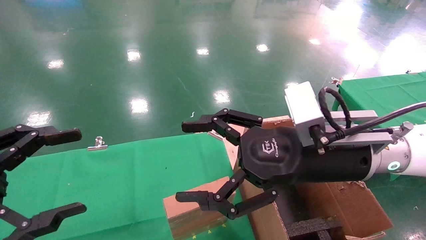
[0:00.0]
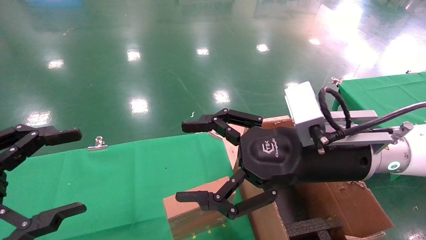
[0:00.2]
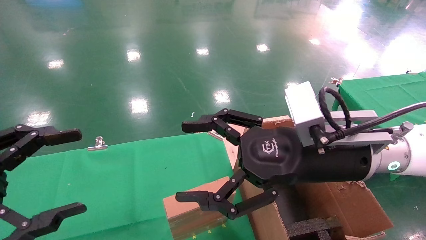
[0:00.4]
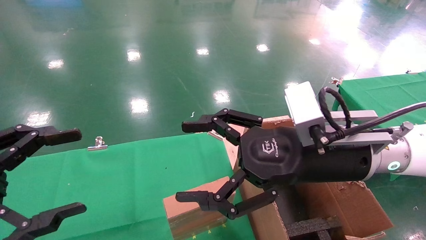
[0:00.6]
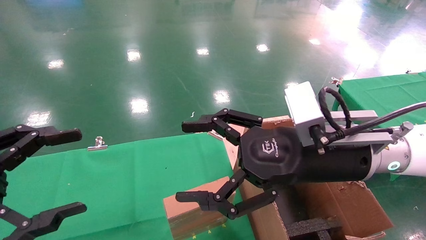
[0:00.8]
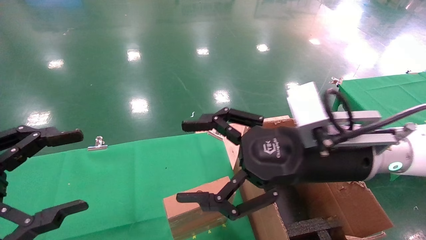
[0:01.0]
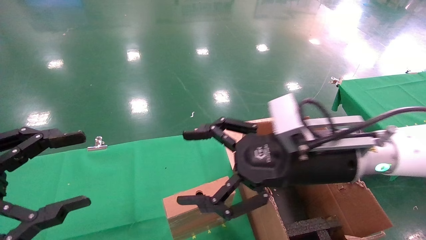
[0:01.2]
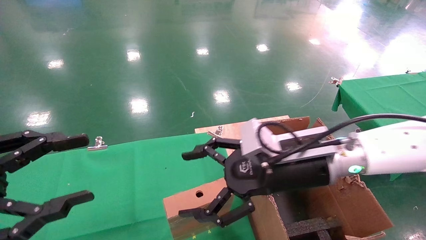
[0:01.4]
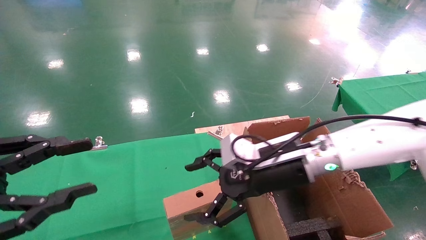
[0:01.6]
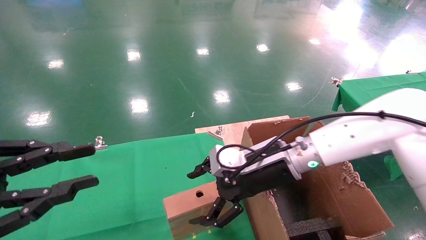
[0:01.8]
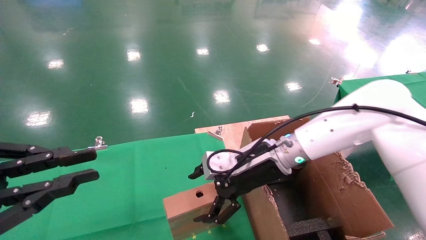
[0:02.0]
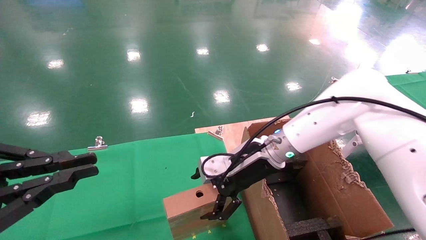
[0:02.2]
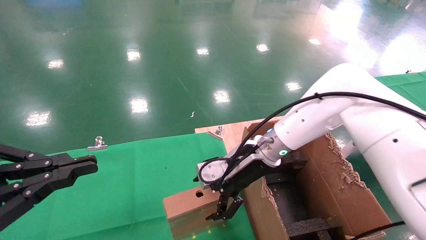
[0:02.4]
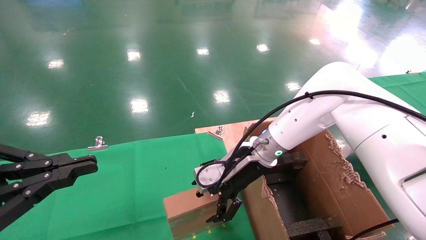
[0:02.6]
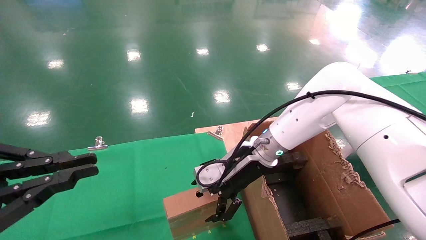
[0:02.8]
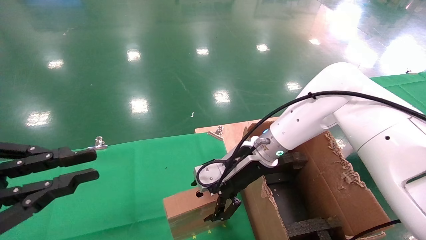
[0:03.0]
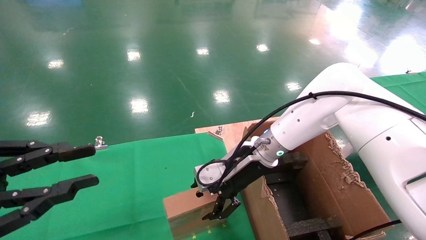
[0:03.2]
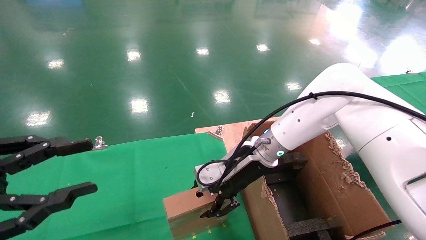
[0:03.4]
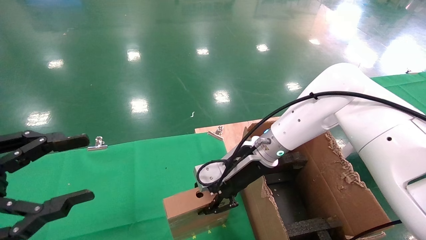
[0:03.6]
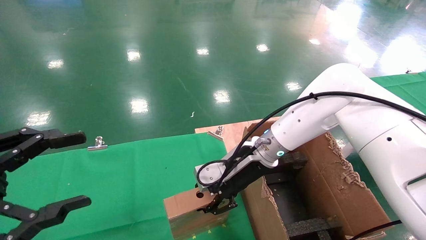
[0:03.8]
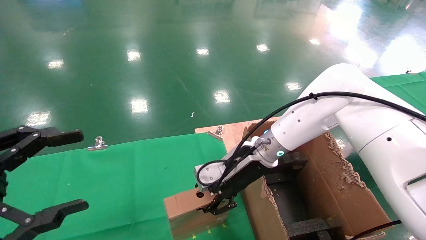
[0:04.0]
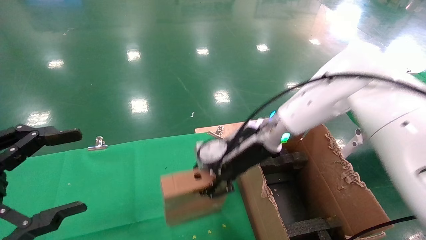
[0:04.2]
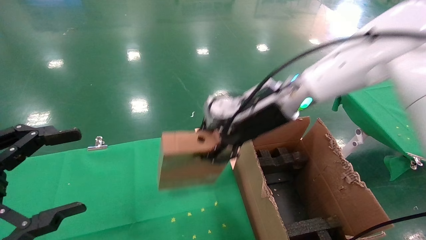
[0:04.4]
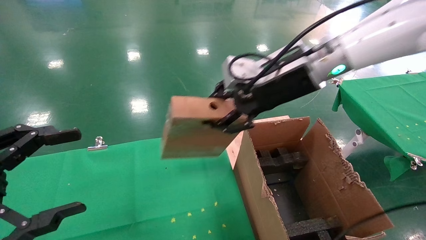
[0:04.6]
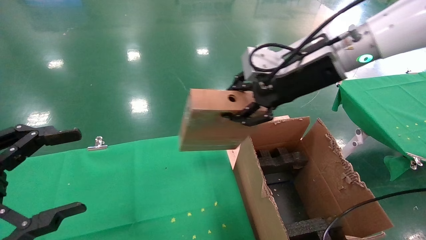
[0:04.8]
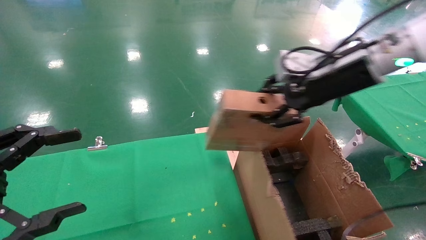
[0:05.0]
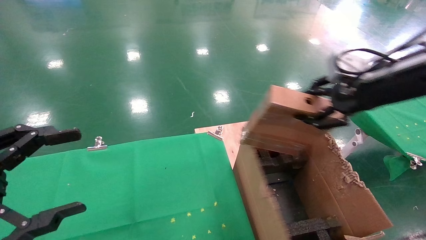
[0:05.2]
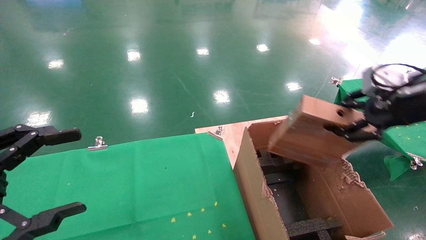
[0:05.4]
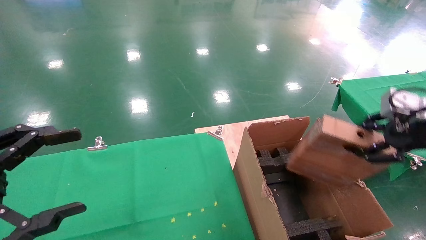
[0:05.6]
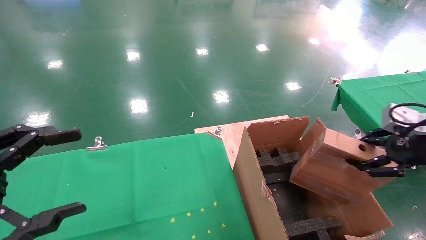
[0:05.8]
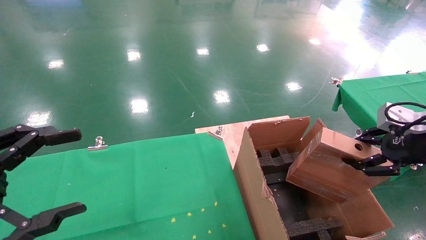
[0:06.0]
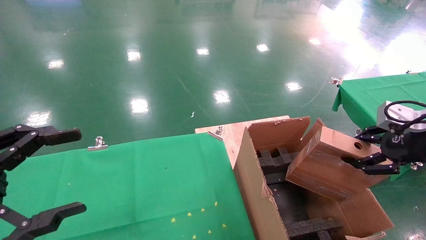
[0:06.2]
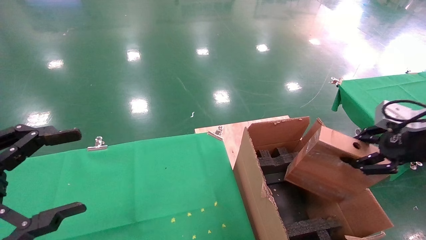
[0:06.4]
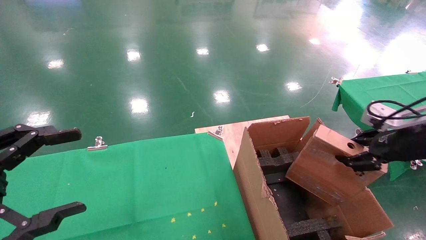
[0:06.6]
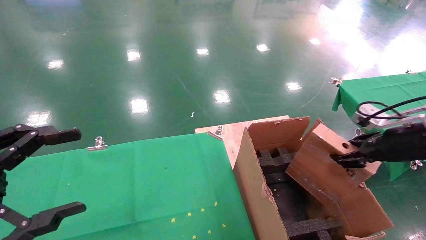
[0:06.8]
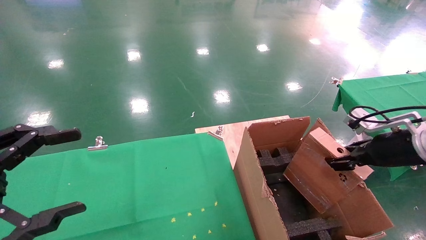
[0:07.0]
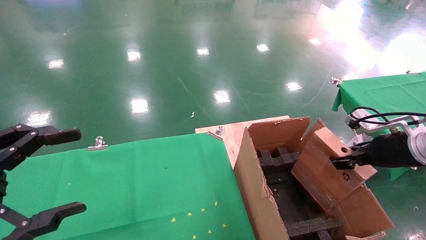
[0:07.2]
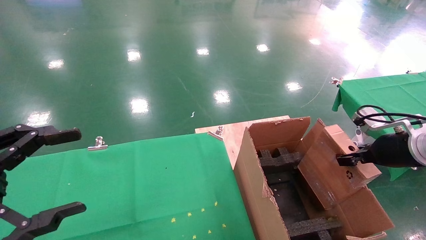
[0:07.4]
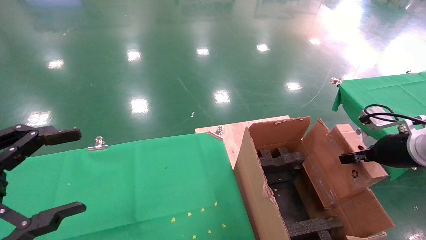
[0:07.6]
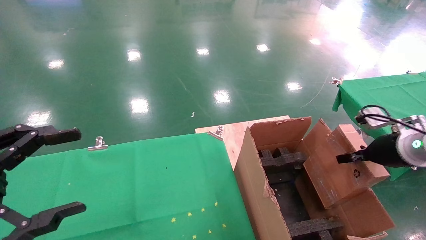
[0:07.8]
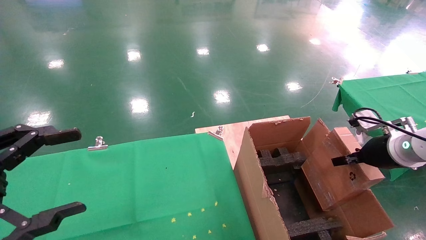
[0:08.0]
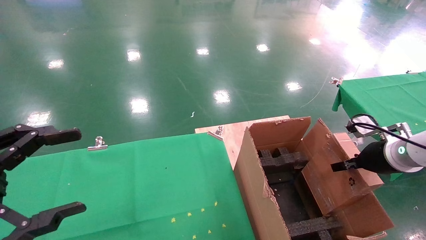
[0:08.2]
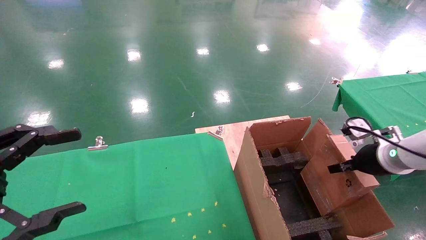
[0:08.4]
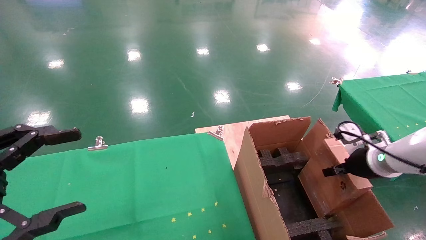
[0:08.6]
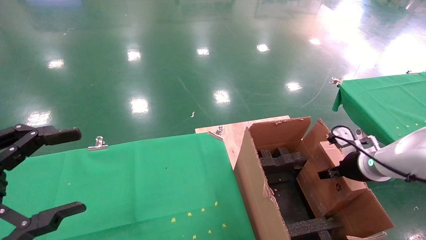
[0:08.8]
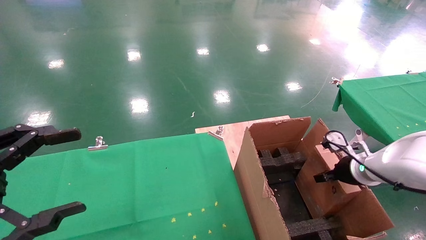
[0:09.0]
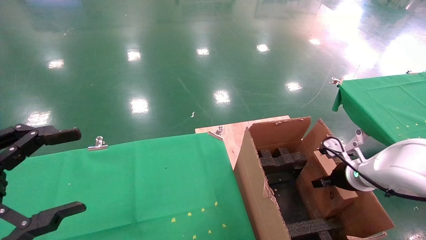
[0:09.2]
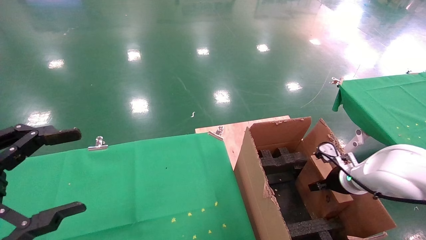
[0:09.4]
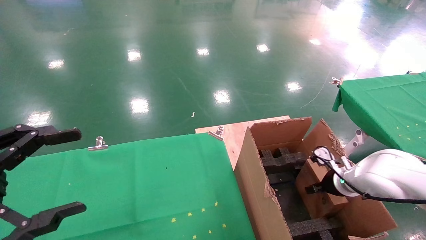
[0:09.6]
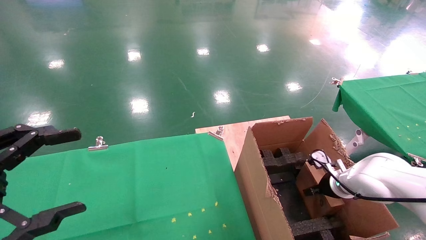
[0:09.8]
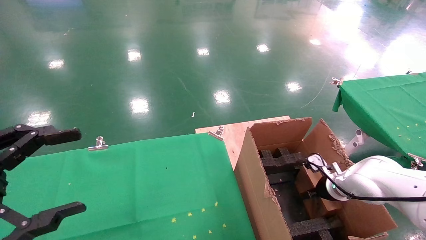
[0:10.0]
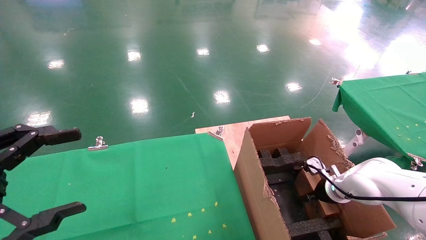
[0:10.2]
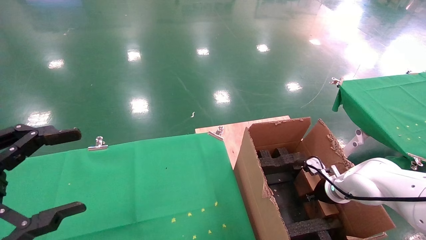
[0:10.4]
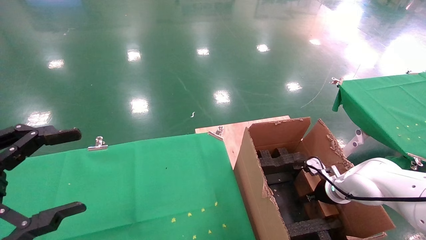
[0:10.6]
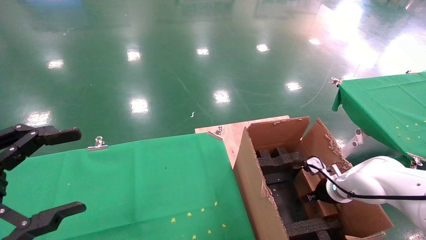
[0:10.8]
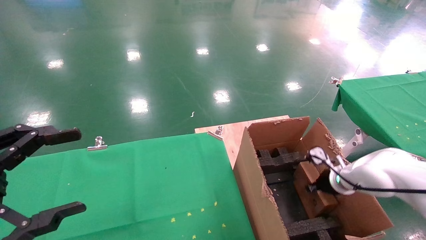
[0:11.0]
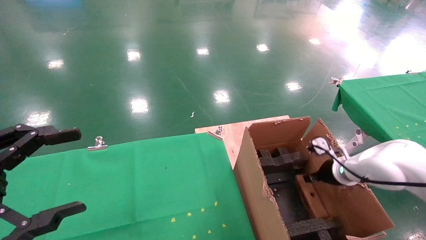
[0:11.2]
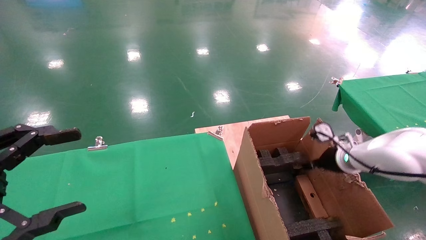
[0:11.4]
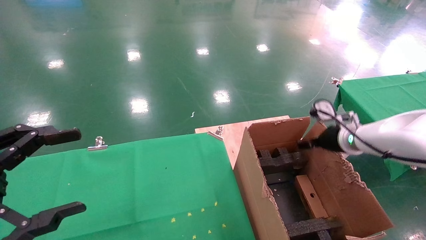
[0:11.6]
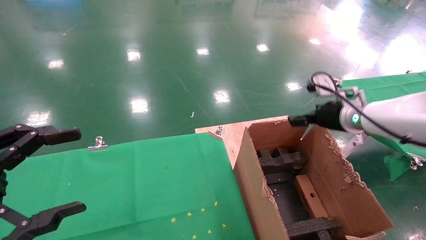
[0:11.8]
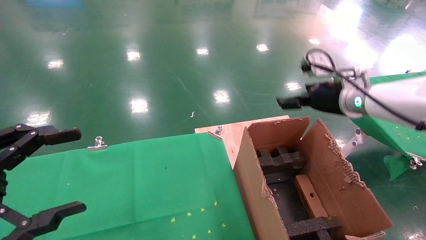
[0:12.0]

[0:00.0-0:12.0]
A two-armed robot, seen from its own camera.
Task of the whole recording: using a robotic arm to pick up a cardboard box and palace it the carton.
Step, 0:01.2 to 0:03.6: Pick up the mouse and the power cord paper box.
Step, 0:03.8 to 0:11.6: Place the mouse and the power cord paper box into the container.
0:00.0 to 0:01.6: The right gripper shifts roughly 10 cm forward and downward, while the left gripper closes its fingers.
0:01.6 to 0:03.0: The left gripper closes up. Meanwhile the right gripper is displaced forward by roughly 10 cm.
0:03.0 to 0:04.4: The left gripper opens up; the right gripper heads upward, covering some 10 cm, and closes.
0:04.4 to 0:06.0: The right gripper travels to the right and backward by approximately 30 cm.
0:06.0 to 0:07.6: The right gripper shifts about 10 cm downward and forward.
0:07.6 to 0:09.0: The right gripper travels downward and forward by some 10 cm.
0:09.0 to 0:10.4: The right gripper goes roughly 10 cm downward and forward.
0:10.4 to 0:12.0: The right gripper travels upward by some 25 cm, and opens its fingers.

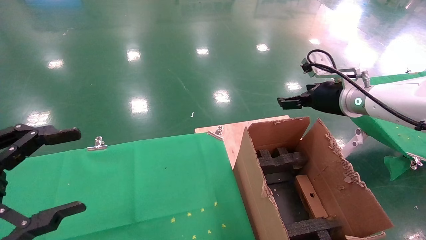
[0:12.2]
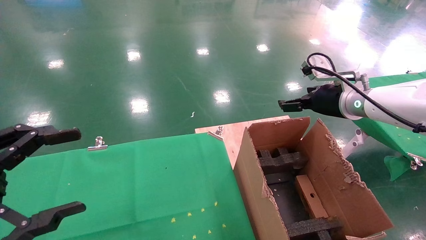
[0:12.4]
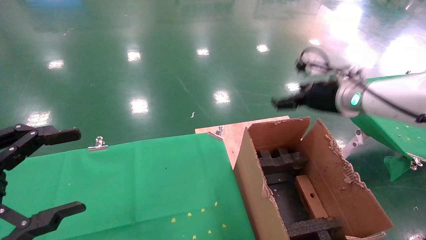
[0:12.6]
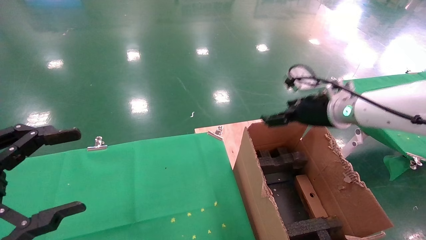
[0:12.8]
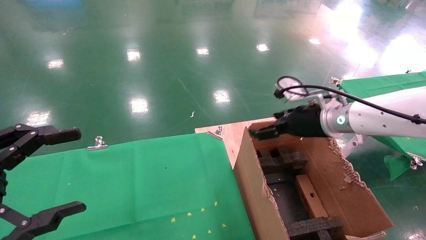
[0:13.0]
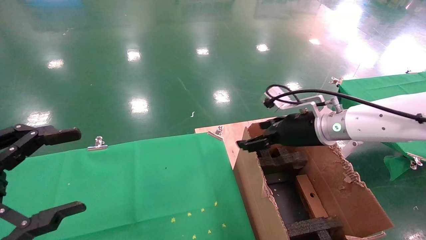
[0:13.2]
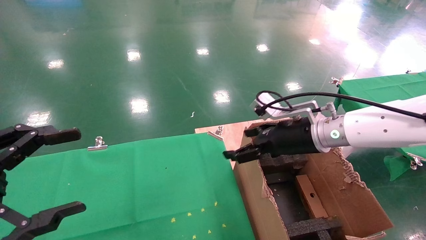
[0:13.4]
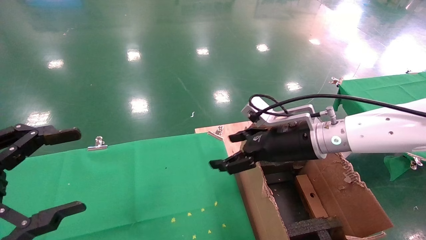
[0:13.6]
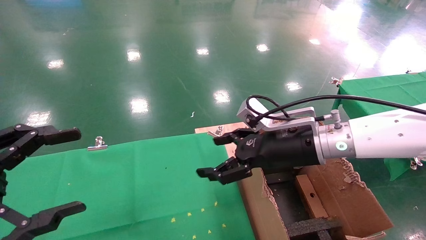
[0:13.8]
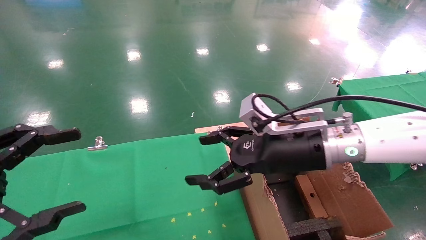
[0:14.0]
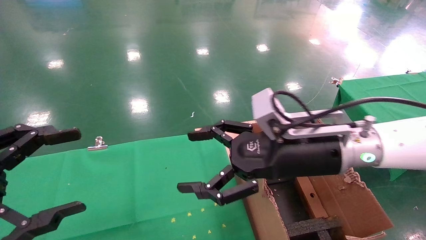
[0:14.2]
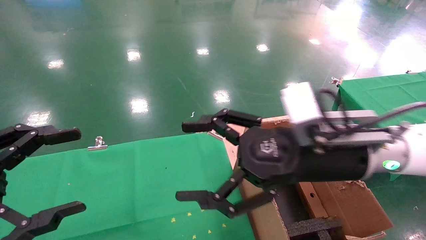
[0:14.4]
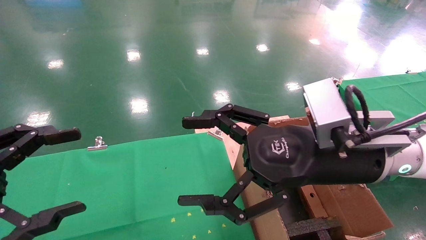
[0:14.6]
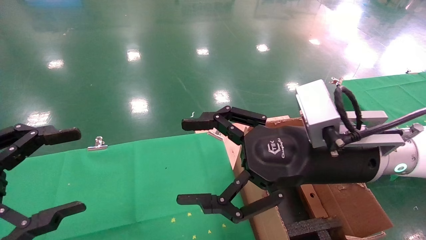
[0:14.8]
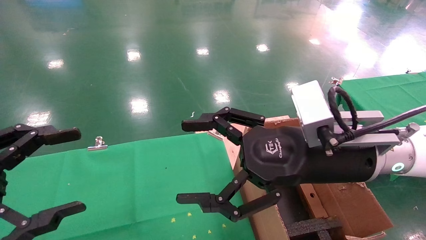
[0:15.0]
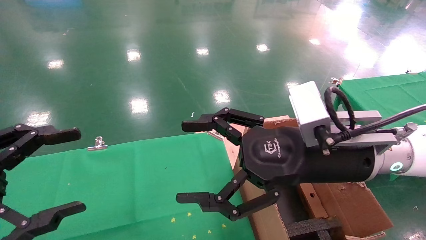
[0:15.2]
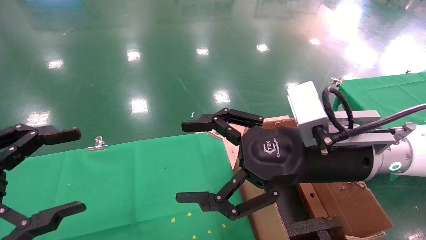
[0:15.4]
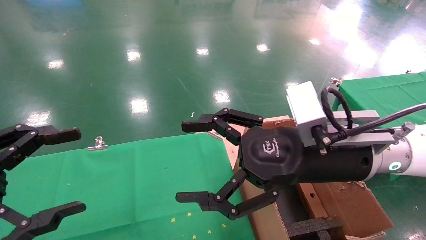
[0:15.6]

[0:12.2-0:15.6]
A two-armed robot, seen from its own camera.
Task of the whole recording: using a robotic arm to pick up a cardboard box and palace it the carton.
0:12.2 to 0:13.8: The right gripper goes some 15 cm to the left and backward.
0:13.8 to 0:15.6: The right gripper travels backward by approximately 10 cm.
